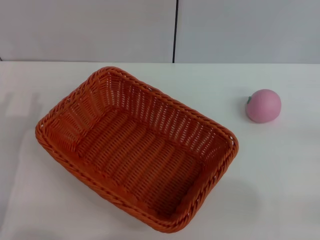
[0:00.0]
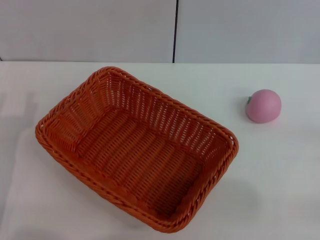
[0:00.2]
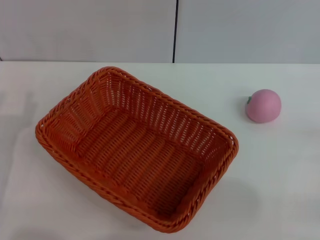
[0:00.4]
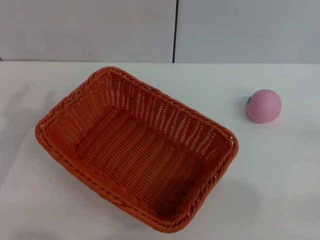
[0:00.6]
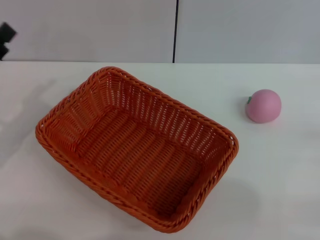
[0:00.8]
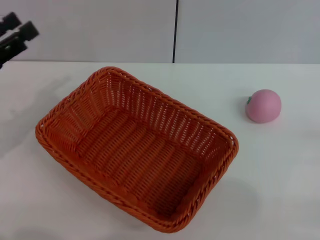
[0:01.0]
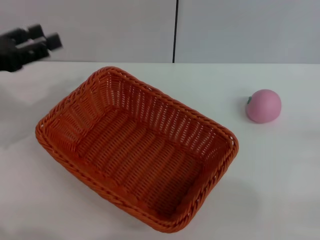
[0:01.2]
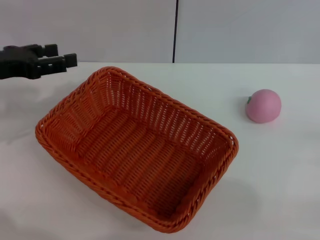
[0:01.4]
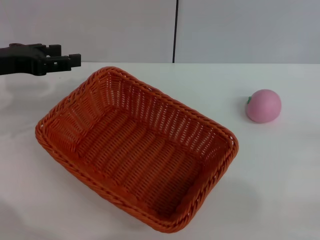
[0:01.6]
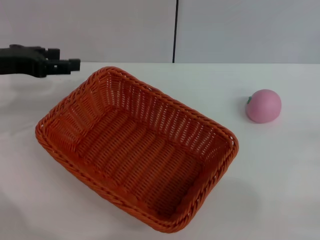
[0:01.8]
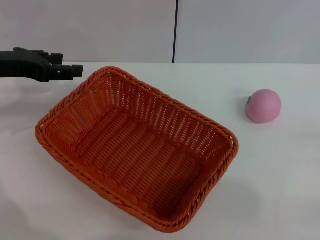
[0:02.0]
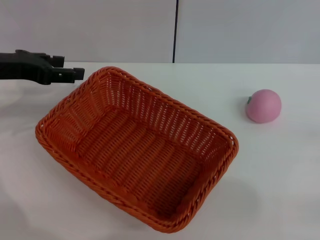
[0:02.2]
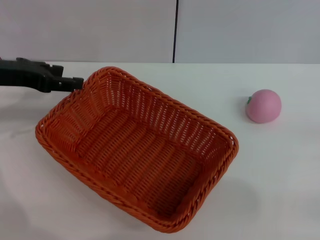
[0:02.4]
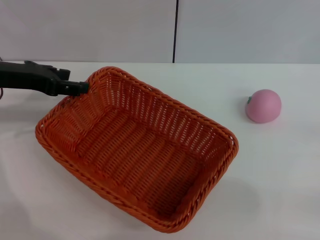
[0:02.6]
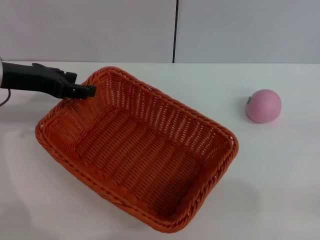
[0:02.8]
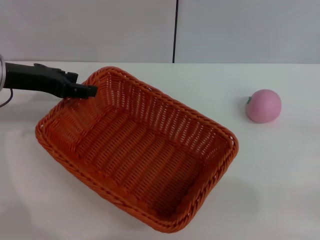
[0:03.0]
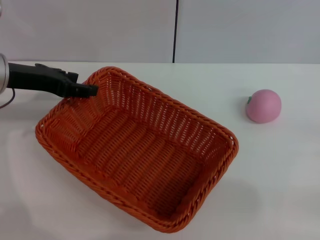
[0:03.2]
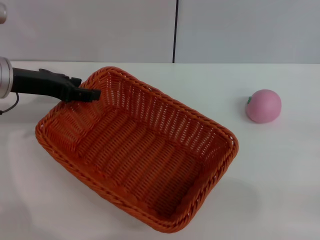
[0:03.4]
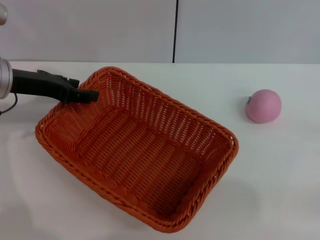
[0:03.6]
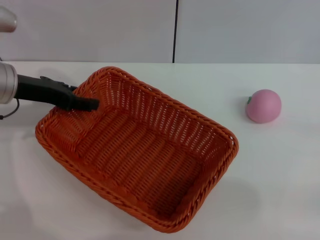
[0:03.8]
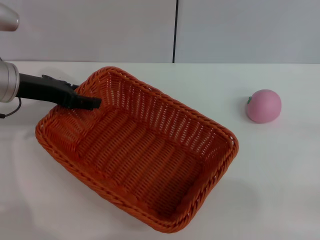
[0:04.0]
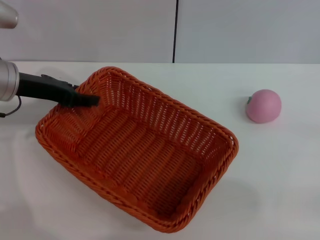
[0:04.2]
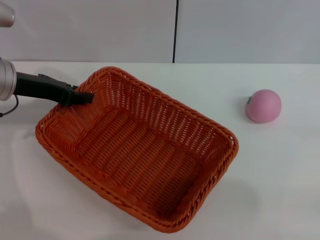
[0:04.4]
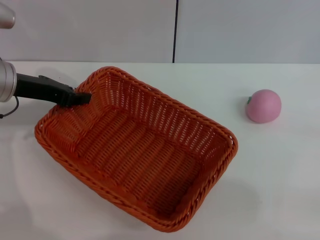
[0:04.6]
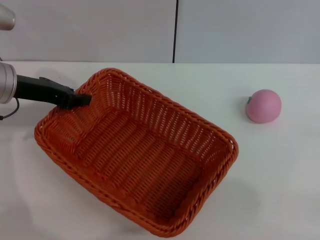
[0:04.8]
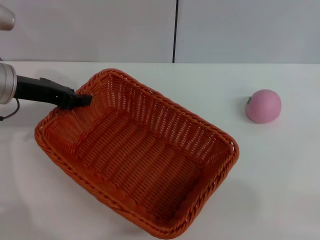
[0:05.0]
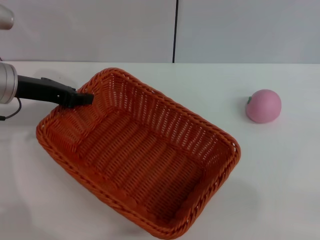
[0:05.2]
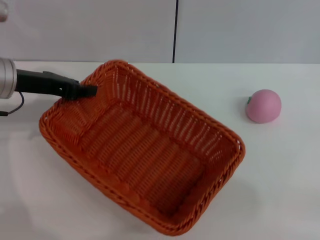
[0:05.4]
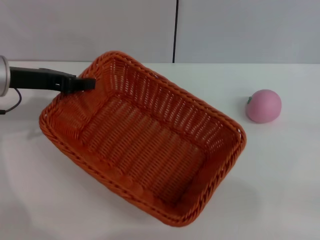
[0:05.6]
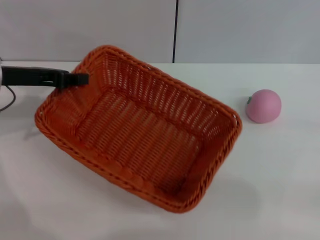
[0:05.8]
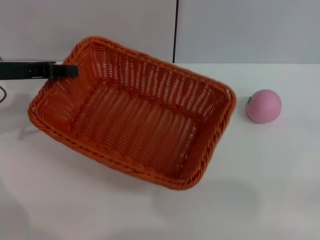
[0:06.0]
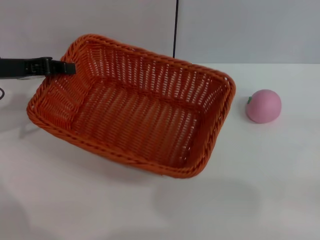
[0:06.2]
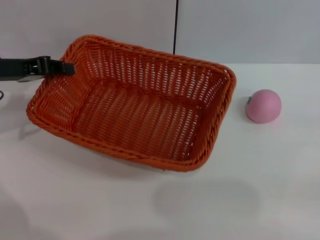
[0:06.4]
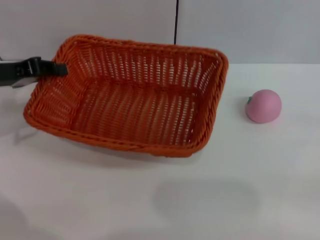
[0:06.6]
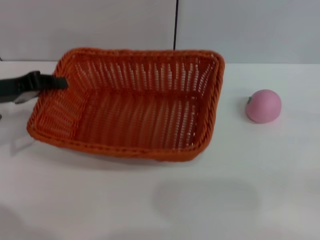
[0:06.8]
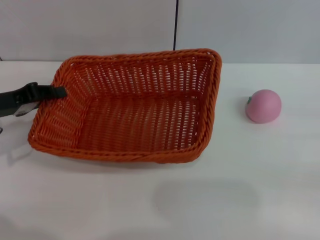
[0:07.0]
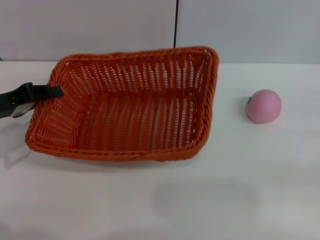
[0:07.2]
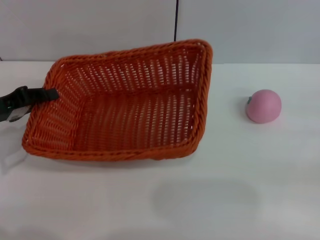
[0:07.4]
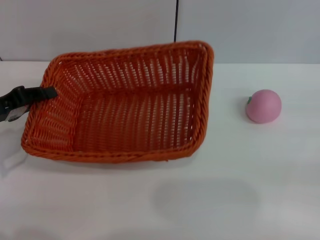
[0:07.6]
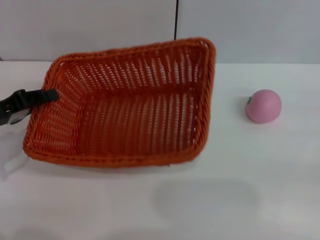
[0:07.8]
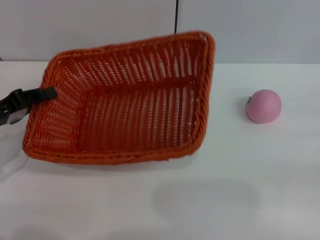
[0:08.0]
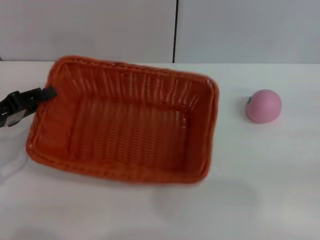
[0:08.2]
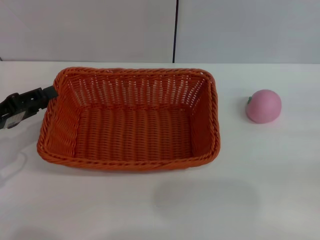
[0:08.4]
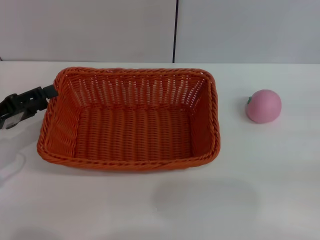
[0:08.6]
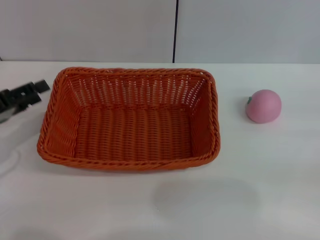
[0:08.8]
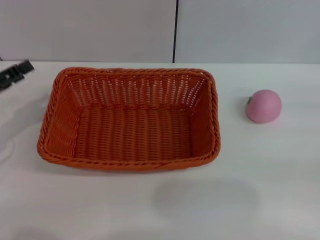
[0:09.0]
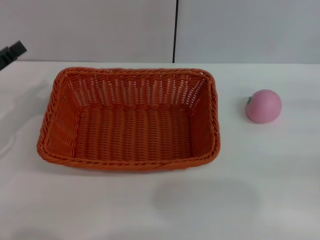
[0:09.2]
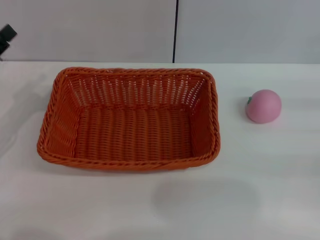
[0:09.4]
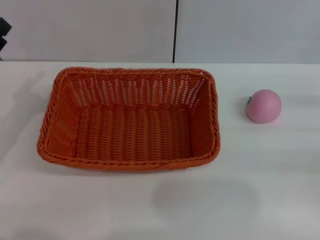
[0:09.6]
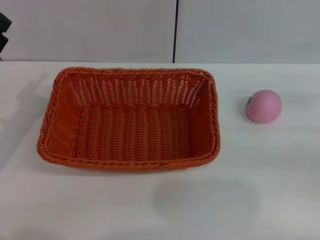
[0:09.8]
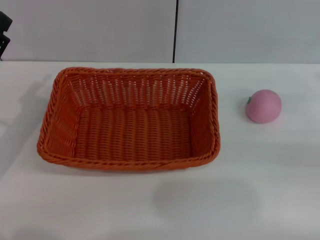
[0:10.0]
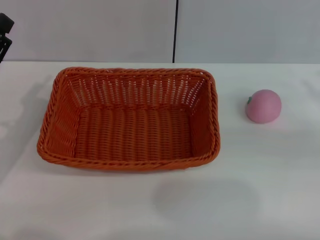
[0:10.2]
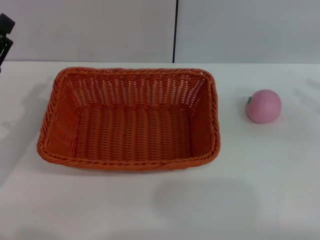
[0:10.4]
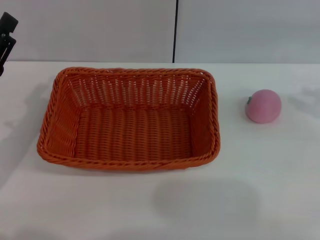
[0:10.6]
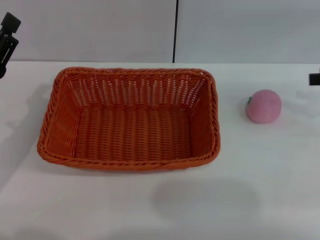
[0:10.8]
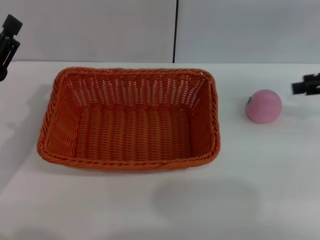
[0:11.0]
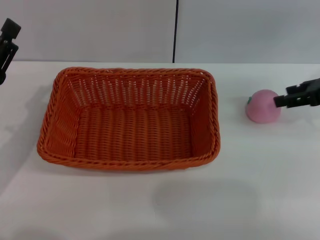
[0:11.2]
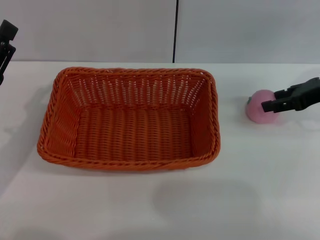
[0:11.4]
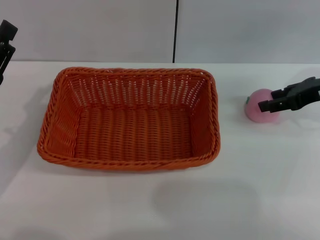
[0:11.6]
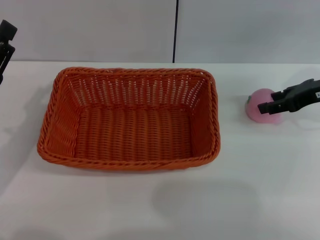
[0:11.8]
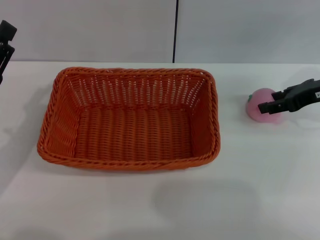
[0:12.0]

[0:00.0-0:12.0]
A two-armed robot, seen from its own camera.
Step, 0:00.0 to 0:05.6: Pick up the light basket with the left gripper.
Step, 0:06.0 to 0:09.0: Place the light basket in the center of view with the right gripper.
0:00.0 to 0:01.6: The left gripper moves forward and upward, approximately 15 cm, and opens.
0:01.6 to 0:03.0: There are only small adjustments of the grippers.
0:03.0 to 0:04.4: The grippers stay close to where they were, moving slightly.
0:04.4 to 0:06.0: The left gripper closes up.
0:06.0 to 0:07.6: The left gripper goes some 10 cm backward and downward.
0:07.6 to 0:09.0: The left gripper opens.
0:09.0 to 0:10.4: The left gripper ends up approximately 5 cm from where it was.
0:10.4 to 0:12.0: The right gripper shifts roughly 15 cm to the left and forward.

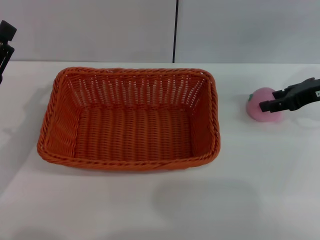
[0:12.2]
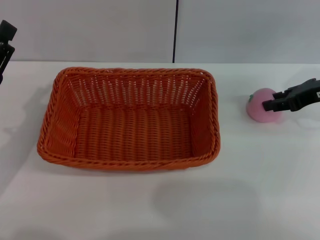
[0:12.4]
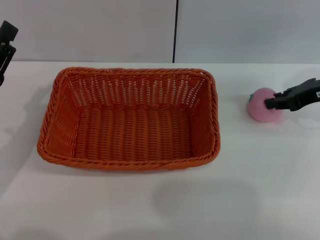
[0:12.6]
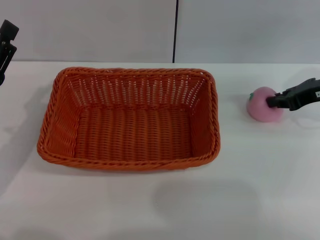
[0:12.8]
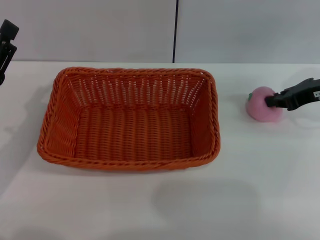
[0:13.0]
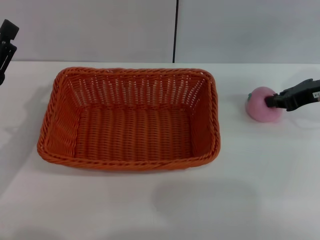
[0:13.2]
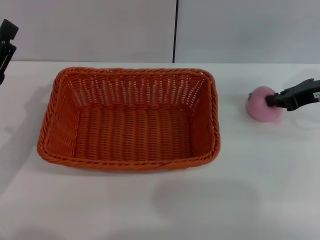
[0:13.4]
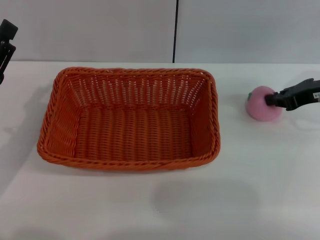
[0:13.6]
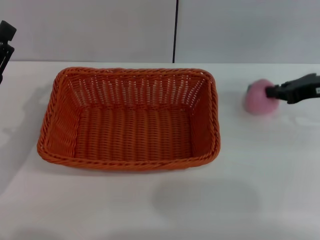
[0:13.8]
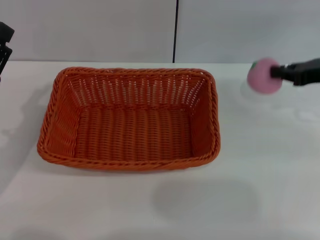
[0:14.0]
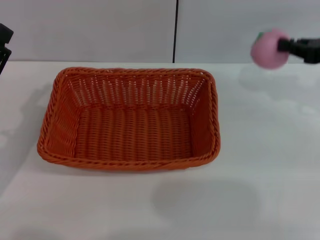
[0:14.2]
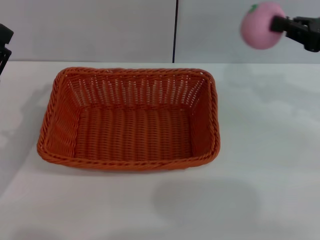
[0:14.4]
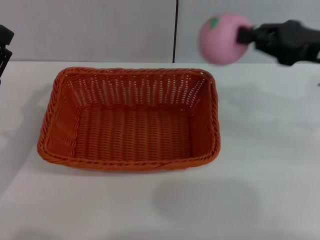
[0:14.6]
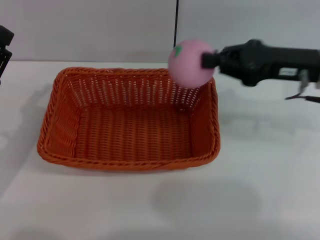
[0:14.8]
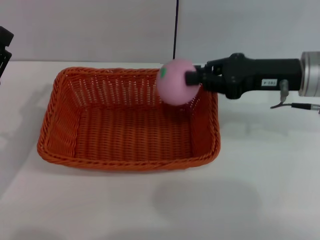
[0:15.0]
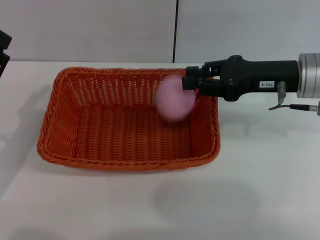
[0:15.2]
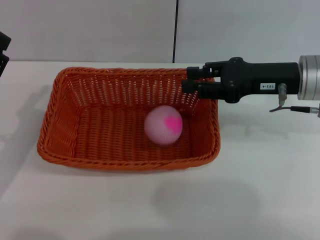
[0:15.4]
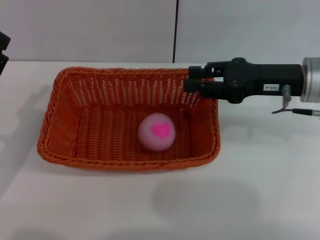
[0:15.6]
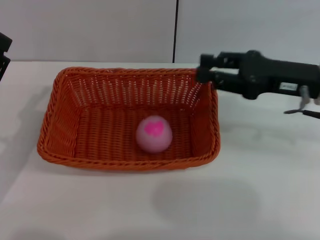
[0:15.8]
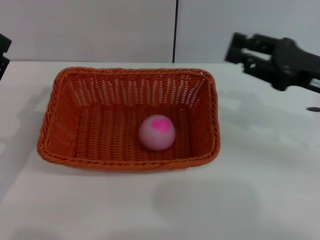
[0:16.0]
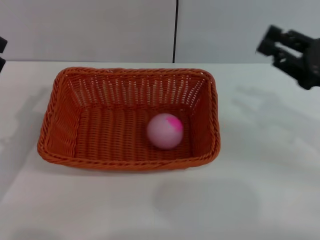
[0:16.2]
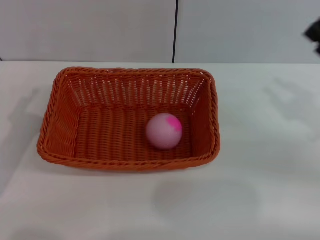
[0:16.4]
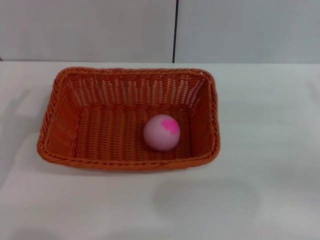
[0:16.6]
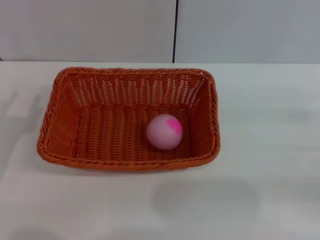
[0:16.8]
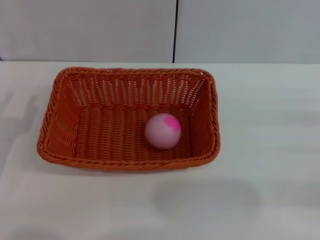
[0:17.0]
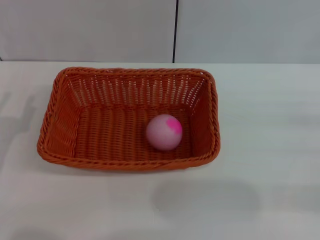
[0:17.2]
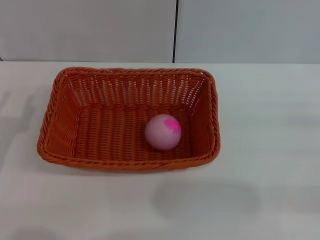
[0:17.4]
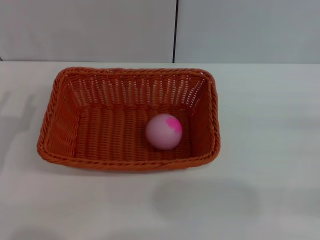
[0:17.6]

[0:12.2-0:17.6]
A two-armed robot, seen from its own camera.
Step, 0:12.2 to 0:14.2: Pick up the peach with the left gripper.
0:12.2 to 0:13.6: The right gripper closes.
0:13.6 to 0:15.0: The right gripper goes some 10 cm to the left.
0:15.0 to 0:16.2: The right gripper goes roughly 10 cm to the right and backward, and opens.
0:16.2 to 0:17.6: The right gripper is displaced to the right and backward by some 15 cm.

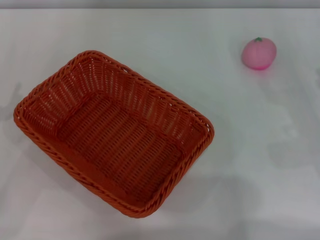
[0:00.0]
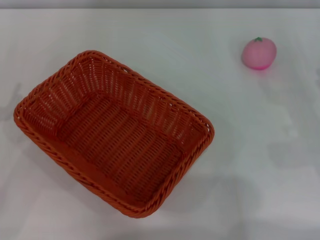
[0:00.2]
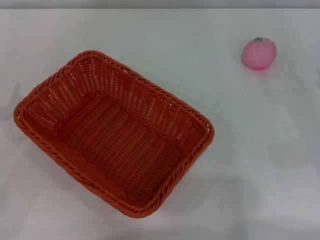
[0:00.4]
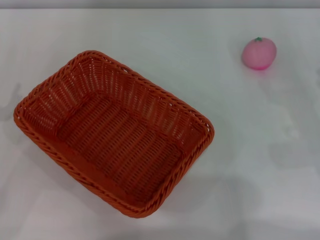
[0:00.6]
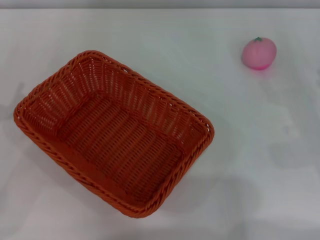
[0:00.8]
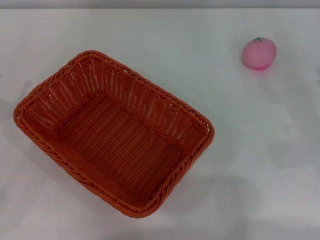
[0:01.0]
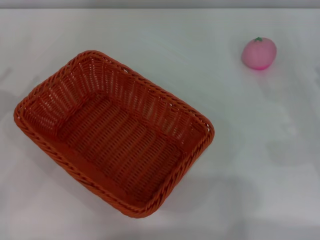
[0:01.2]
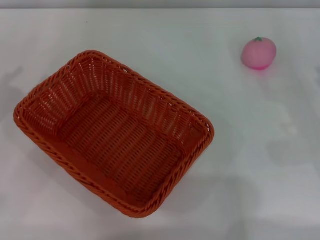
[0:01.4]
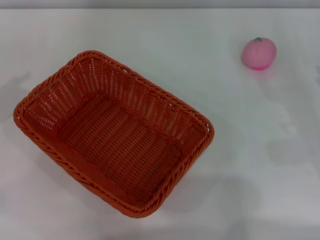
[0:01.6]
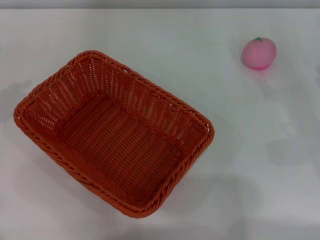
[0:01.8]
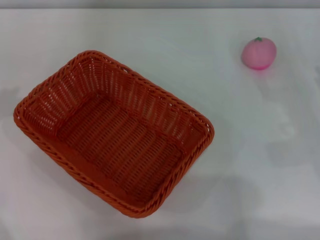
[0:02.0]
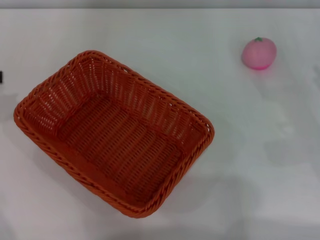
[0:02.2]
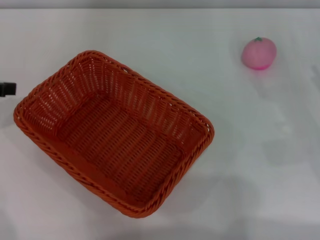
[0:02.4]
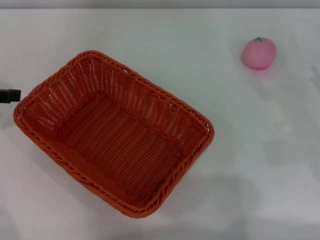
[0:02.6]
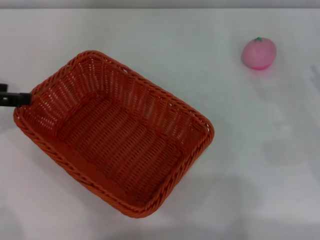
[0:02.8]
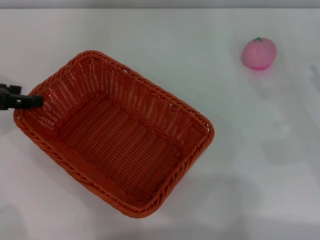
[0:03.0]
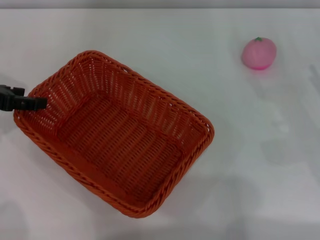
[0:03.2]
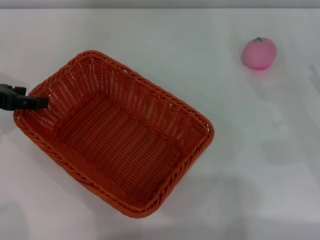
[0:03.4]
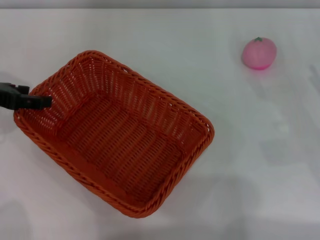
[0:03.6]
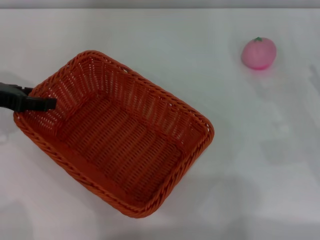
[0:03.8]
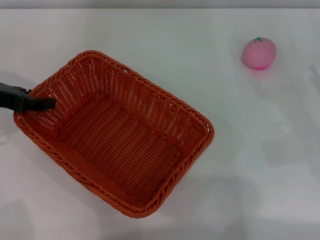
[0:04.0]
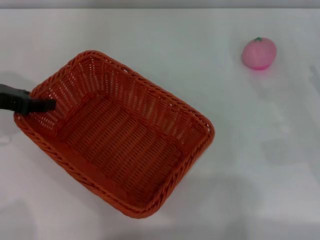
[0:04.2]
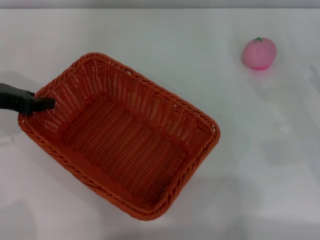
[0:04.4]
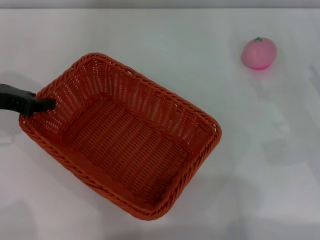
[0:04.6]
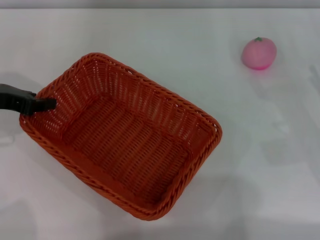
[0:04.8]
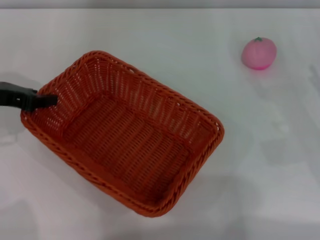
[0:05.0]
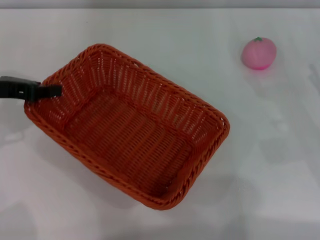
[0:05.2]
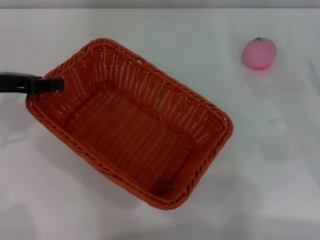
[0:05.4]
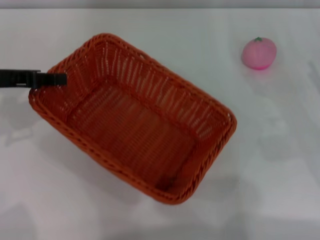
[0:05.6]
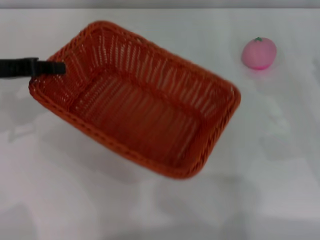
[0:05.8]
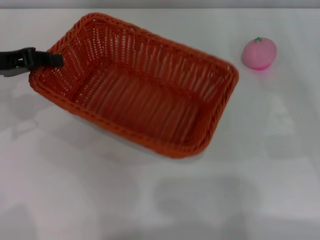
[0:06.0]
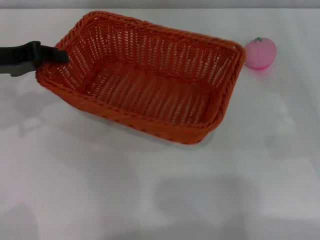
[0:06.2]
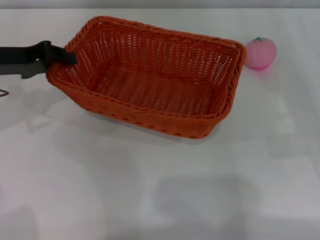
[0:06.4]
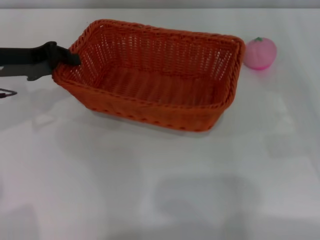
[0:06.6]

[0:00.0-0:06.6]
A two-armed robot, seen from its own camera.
Step, 0:00.0 to 0:05.2: Pick up the light basket with the left gripper.
0:01.6 to 0:03.2: The left gripper shifts by roughly 5 cm.
0:03.2 to 0:05.0: The left gripper closes its fingers.
